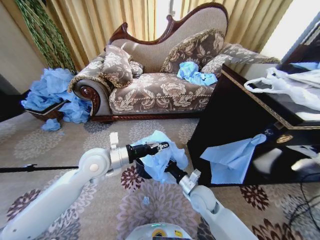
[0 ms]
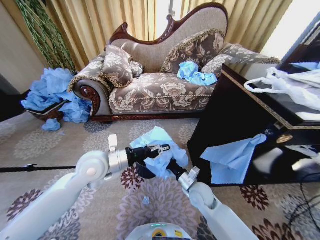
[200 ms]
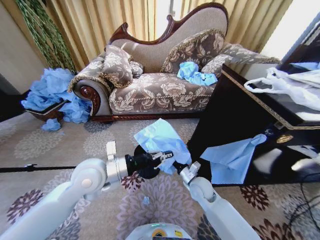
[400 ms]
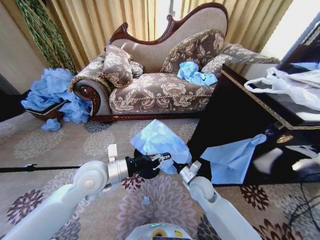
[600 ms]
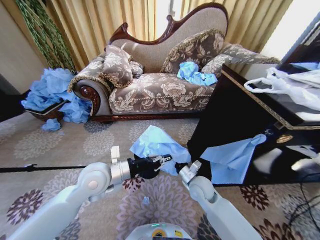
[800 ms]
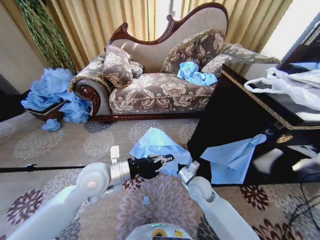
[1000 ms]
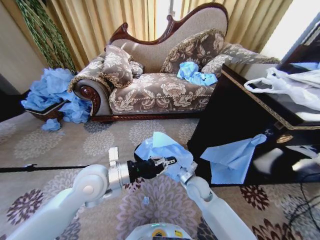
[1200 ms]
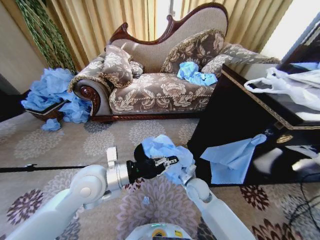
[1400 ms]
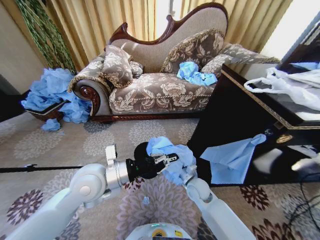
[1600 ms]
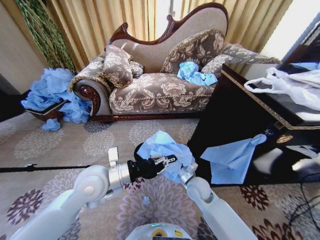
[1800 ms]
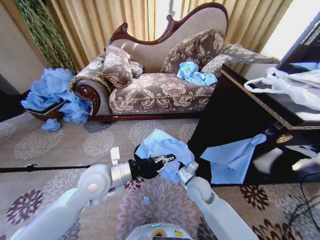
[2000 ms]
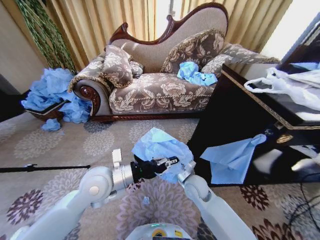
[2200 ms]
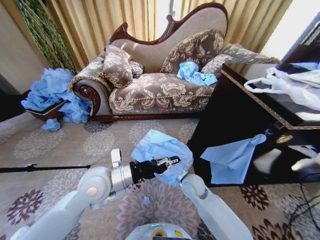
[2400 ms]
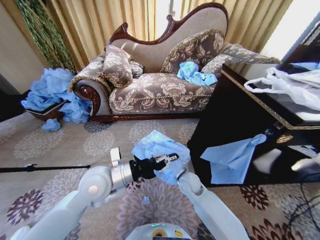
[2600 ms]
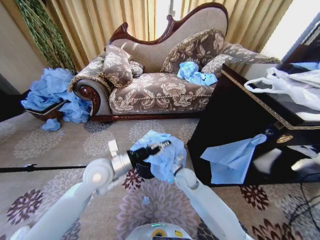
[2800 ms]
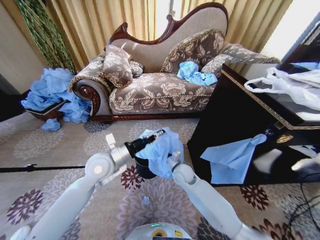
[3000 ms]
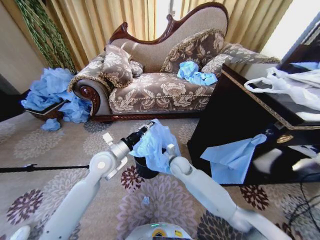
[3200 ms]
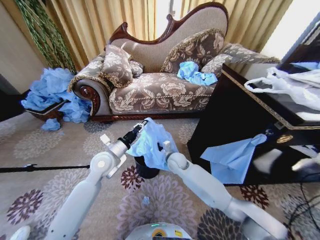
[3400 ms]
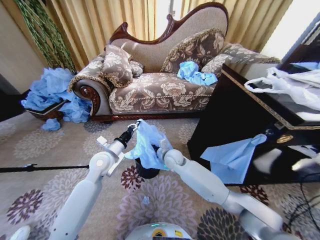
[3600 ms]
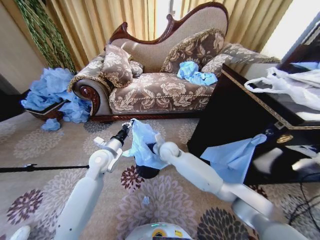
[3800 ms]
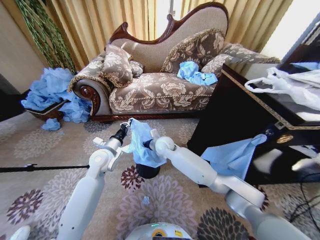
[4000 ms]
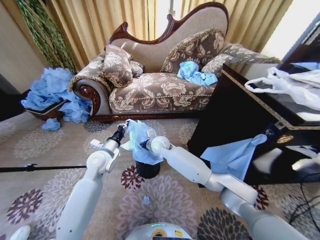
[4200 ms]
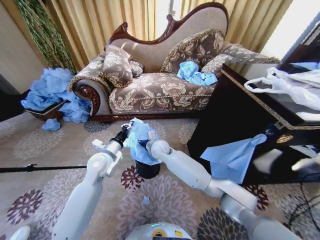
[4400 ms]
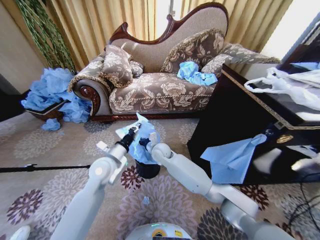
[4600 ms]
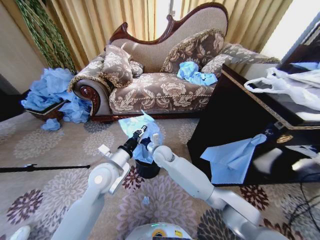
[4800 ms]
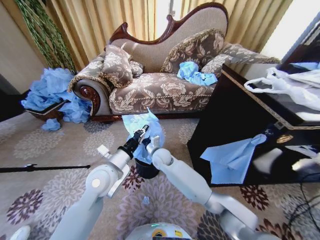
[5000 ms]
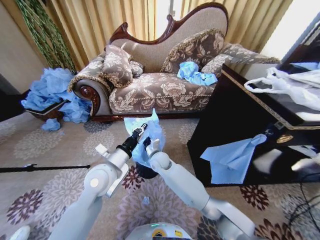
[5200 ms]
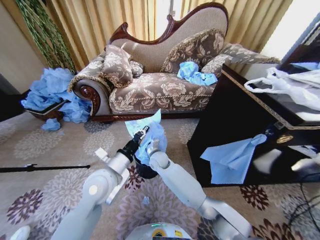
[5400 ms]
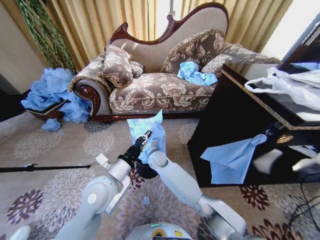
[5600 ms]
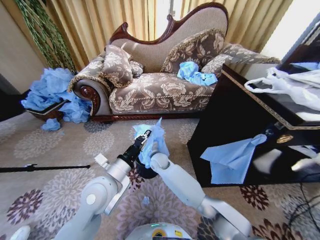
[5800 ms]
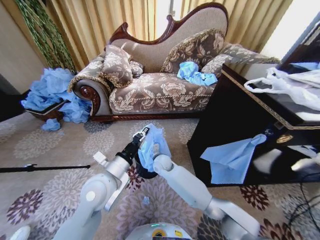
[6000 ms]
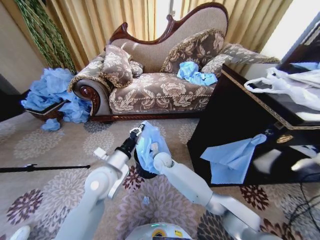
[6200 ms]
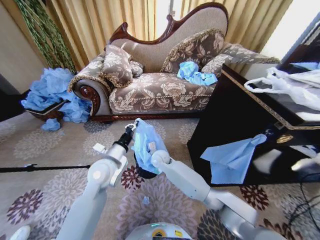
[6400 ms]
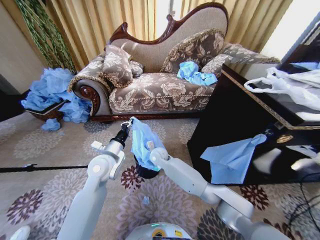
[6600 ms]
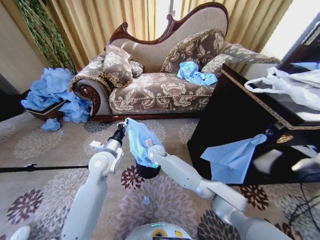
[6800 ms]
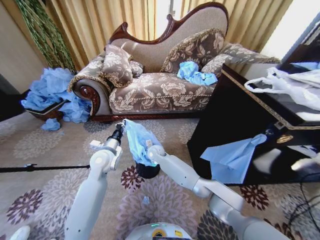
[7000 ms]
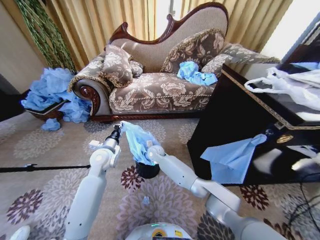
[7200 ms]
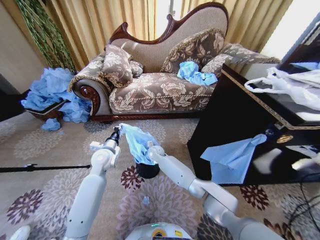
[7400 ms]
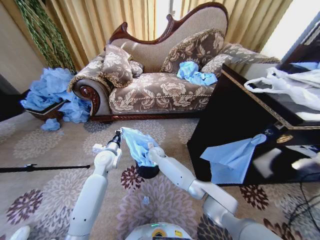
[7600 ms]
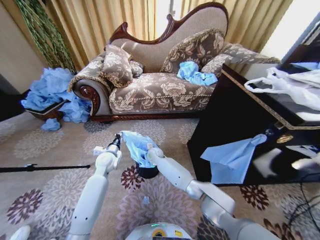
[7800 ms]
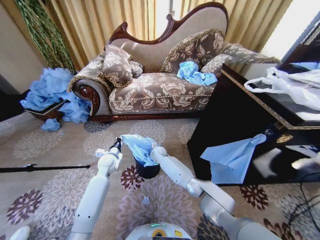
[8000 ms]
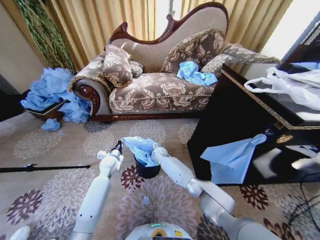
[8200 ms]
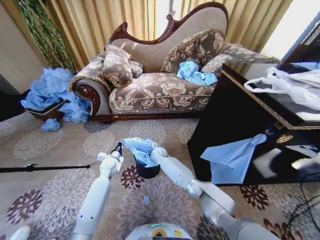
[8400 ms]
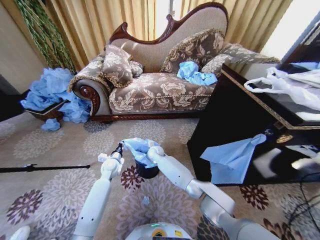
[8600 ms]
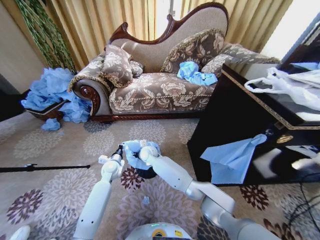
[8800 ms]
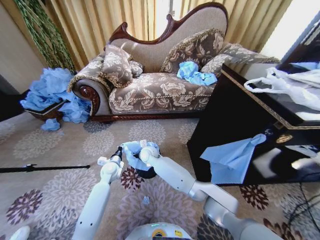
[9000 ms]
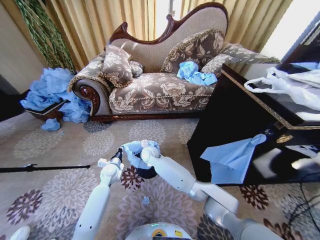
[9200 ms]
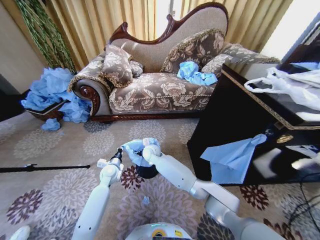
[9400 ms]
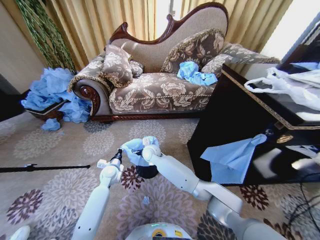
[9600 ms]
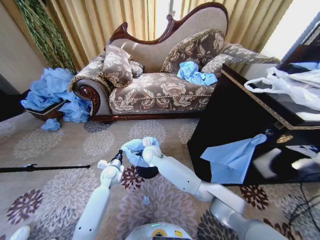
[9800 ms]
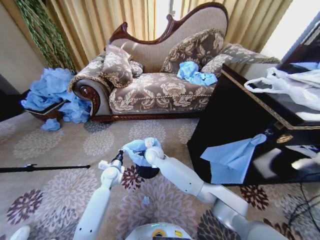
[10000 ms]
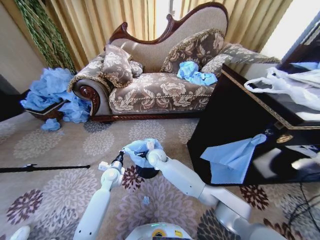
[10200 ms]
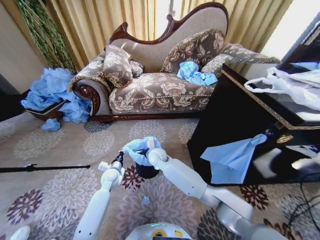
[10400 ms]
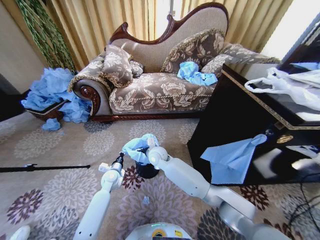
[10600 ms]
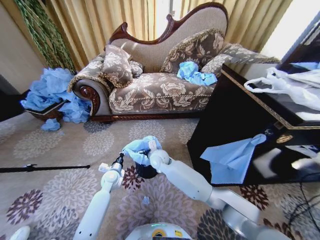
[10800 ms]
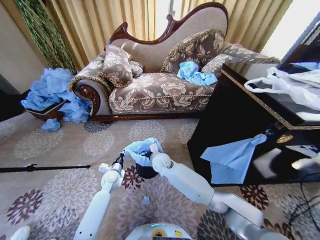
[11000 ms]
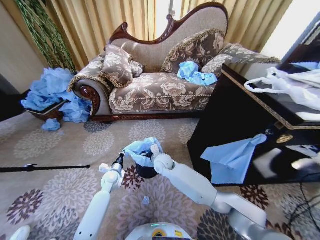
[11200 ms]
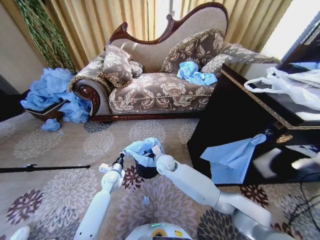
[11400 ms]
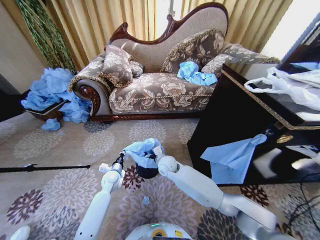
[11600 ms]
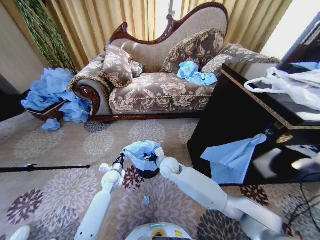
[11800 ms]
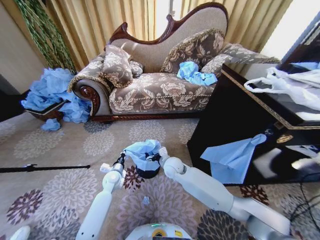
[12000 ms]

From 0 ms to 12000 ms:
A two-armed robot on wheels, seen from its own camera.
Task of the whole recording: Place a garbage bag over the trash bin.
From 0 ms to 1600 ms: The left gripper goes about 5 cm backward.
From 1600 ms to 3000 ms: The left gripper moves forward, some 5 cm, while the right gripper heads to the left and forward, covering about 10 cm.
From 3000 ms to 4400 ms: The right gripper is displaced to the left, forward and upward by some 15 cm.
From 4400 ms to 6000 ms: The right gripper goes some 5 cm downward; the left gripper travels backward and to the right by about 10 cm.
From 6000 ms to 7600 ms: The right gripper travels forward by some 10 cm; the left gripper goes approximately 20 cm forward, downward and to the left.
From 7600 ms to 9000 ms: The left gripper goes some 10 cm downward, while the right gripper goes roughly 5 cm upward, and opens its fingers.
From 9000 ms to 10400 ms: The right gripper opens.
From 10400 ms to 12000 ms: The right gripper travels to the right by some 10 cm.

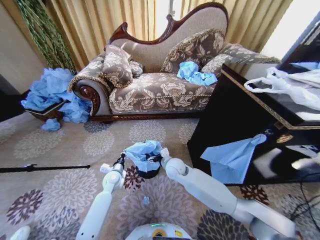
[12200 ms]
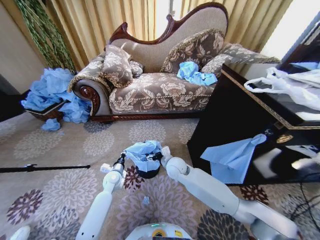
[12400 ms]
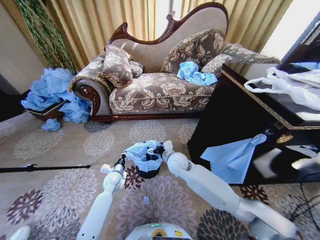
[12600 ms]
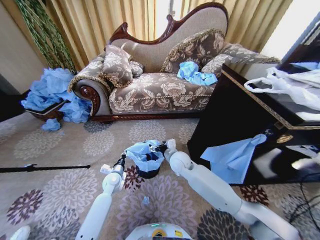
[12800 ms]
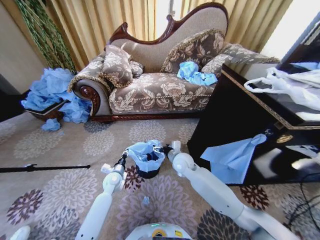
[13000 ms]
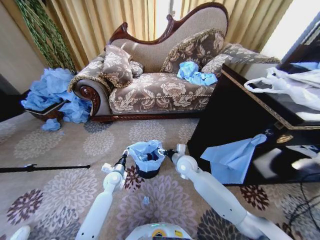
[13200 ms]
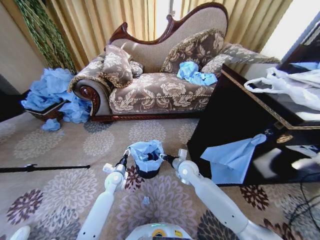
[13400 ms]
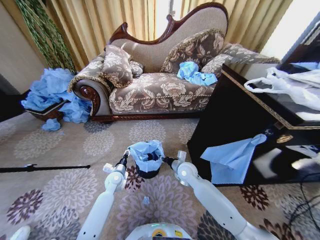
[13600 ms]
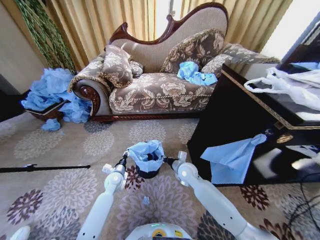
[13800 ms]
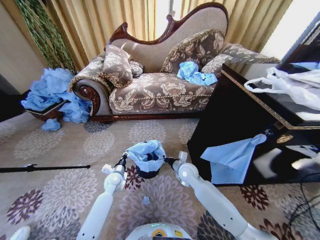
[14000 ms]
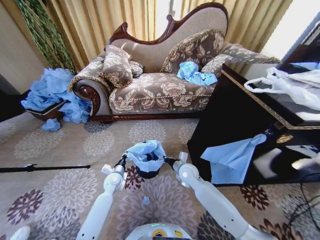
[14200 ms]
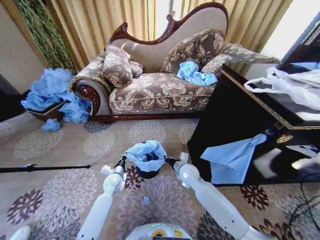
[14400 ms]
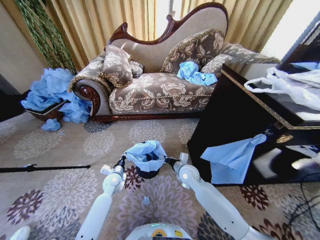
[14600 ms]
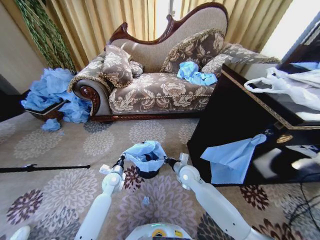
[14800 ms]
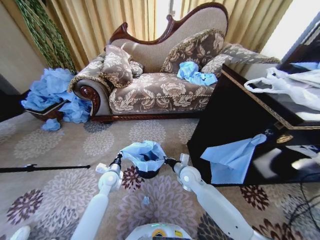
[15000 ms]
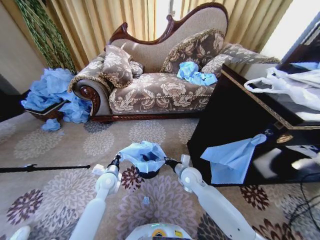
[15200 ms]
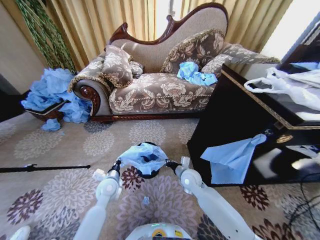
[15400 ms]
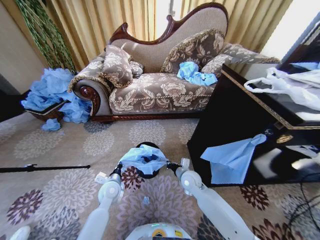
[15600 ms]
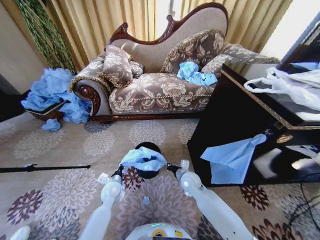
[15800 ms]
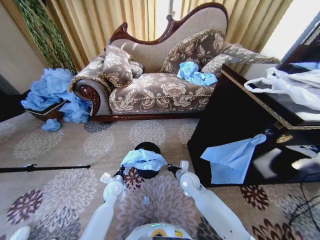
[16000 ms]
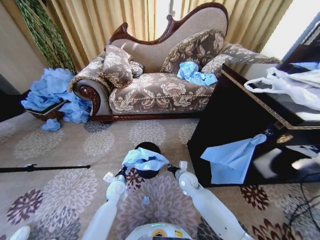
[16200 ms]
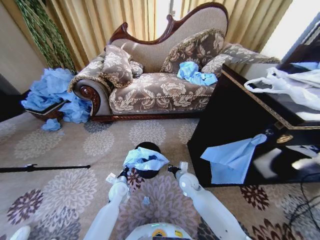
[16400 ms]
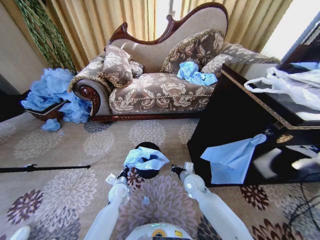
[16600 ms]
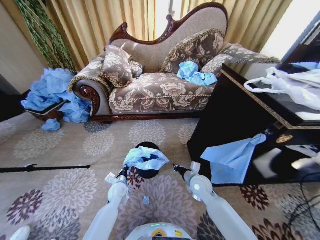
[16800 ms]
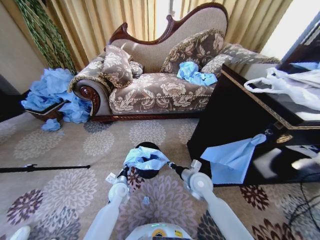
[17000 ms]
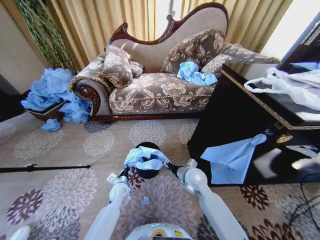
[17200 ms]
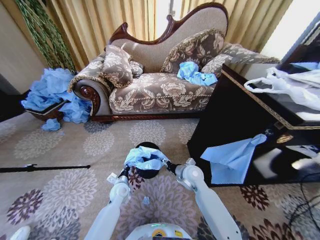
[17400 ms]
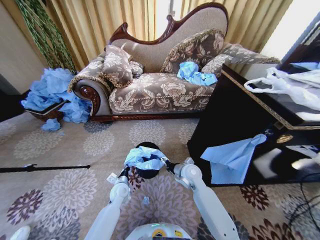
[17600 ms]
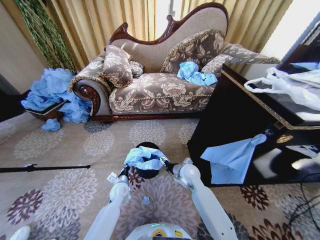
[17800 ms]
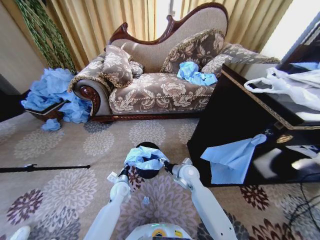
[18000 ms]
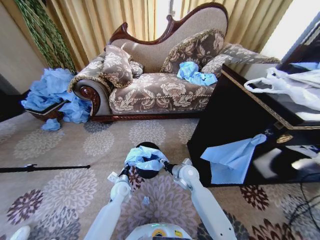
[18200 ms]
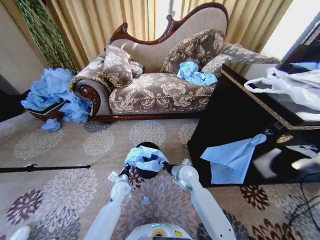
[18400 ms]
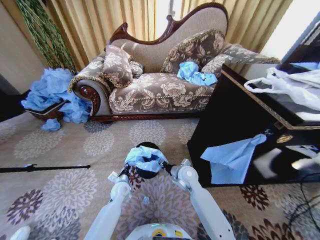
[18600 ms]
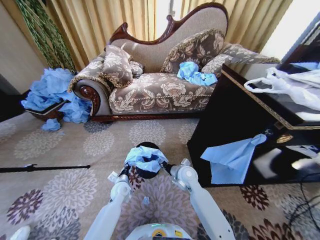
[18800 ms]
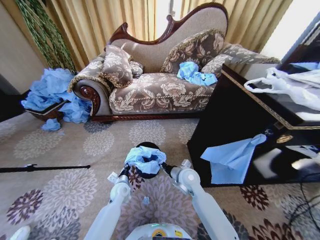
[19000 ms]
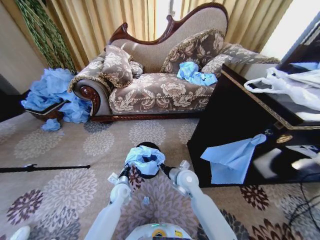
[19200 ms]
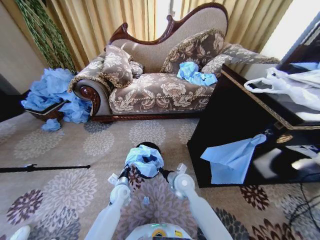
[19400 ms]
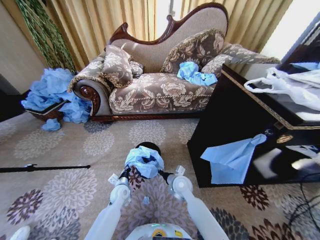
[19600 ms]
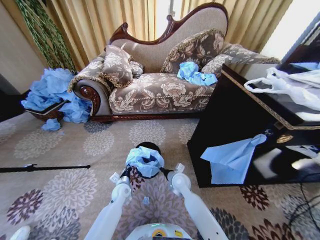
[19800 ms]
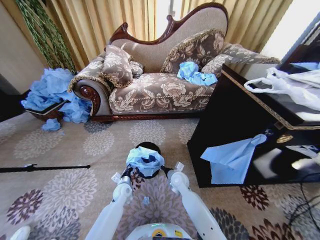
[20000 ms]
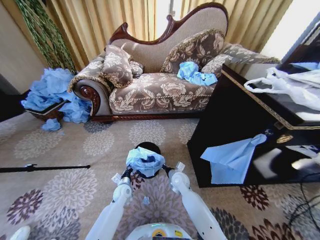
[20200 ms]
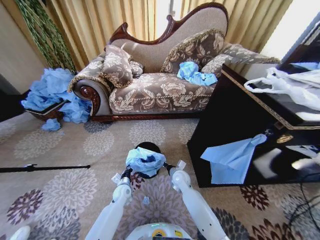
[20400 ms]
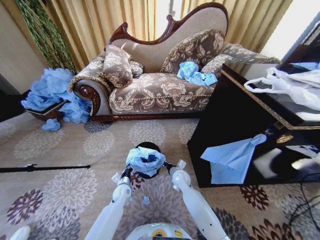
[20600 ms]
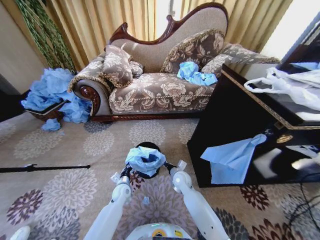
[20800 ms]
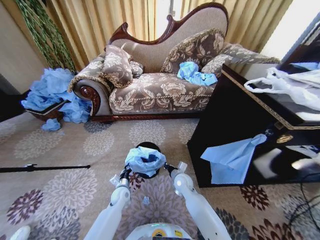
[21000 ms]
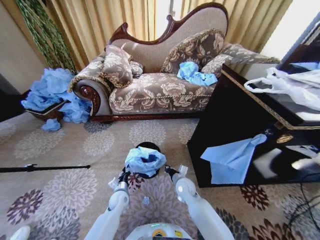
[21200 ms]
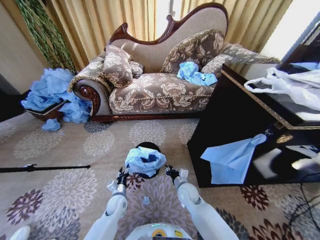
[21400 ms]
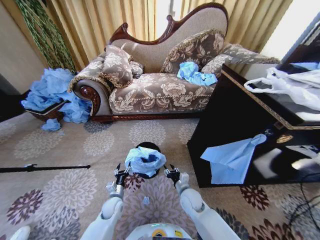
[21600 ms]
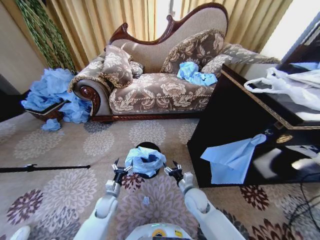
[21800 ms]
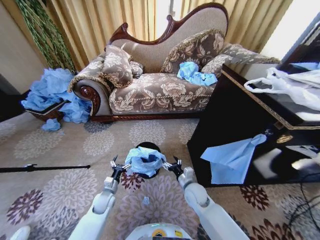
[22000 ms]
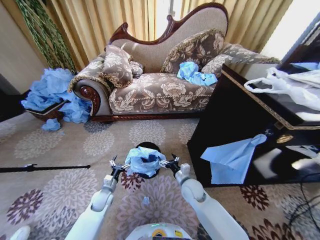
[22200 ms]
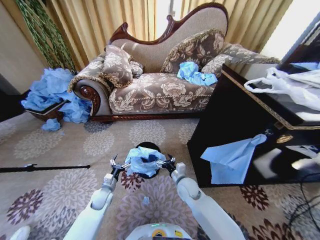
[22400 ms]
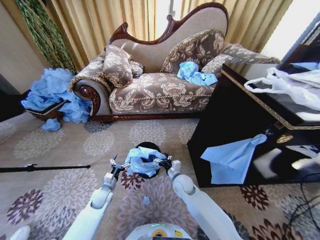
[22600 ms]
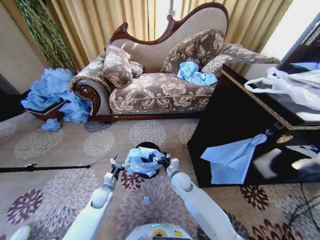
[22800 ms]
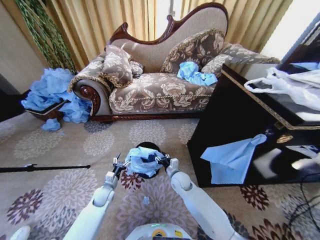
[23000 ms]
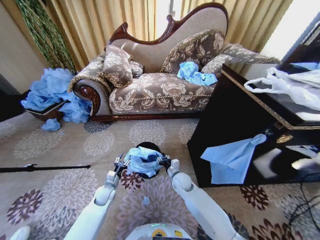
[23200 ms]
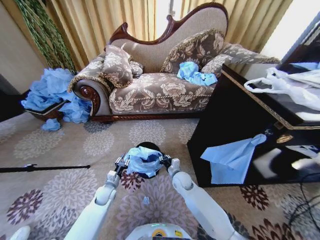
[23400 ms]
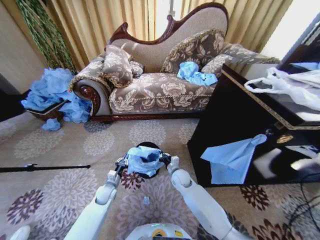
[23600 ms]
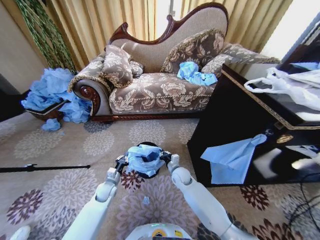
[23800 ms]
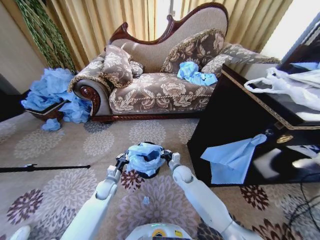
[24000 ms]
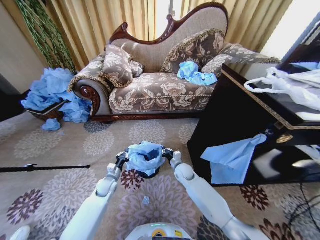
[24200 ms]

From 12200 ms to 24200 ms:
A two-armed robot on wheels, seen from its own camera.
Task of the whole recording: Place a garbage bag over the trash bin.
From 12200 ms to 13800 ms: The left gripper opens up; the right gripper shifts about 5 cm to the right, and closes up.
From 13800 ms to 15200 ms: The left gripper shifts about 5 cm upward, and closes up.
From 15200 ms to 16600 ms: The left gripper shifts approximately 10 cm downward, while the right gripper goes approximately 5 cm downward.
From 16600 ms to 18200 ms: The right gripper travels upward by about 5 cm, and opens its fingers.
From 18200 ms to 19800 ms: The right gripper heads downward, covering roughly 5 cm, and closes.
From 19800 ms to 21200 ms: The grippers make only small movements.
From 21200 ms to 22600 ms: The left gripper goes roughly 10 cm to the left, and opens; the right gripper opens its fingers.
From 22600 ms to 24200 ms: The right gripper shifts some 10 cm forward, and closes, while the left gripper shifts by about 5 cm, and closes.
